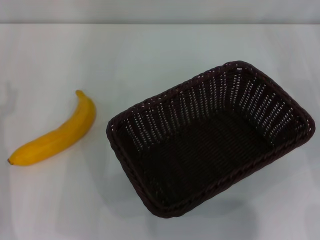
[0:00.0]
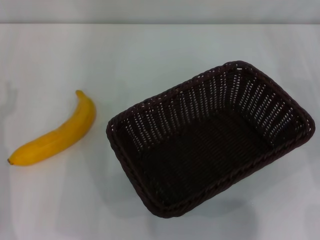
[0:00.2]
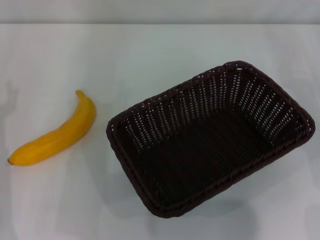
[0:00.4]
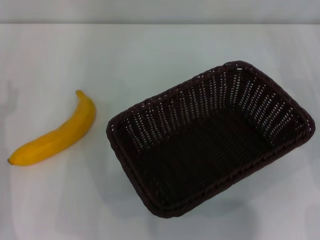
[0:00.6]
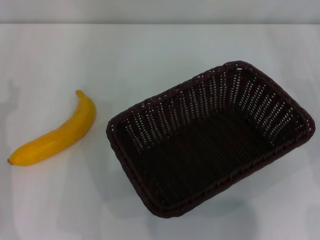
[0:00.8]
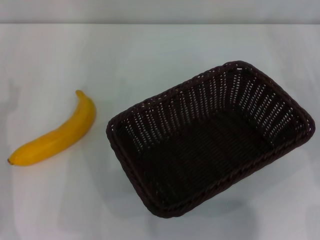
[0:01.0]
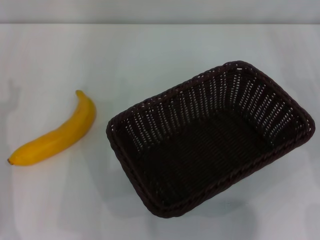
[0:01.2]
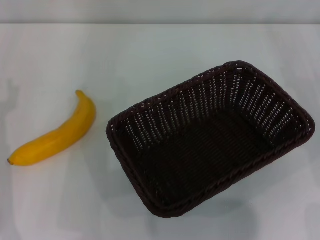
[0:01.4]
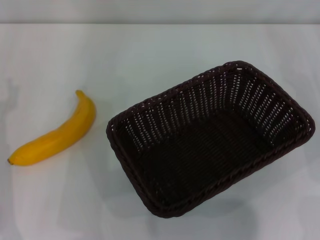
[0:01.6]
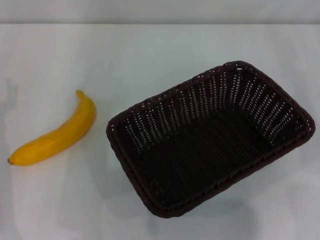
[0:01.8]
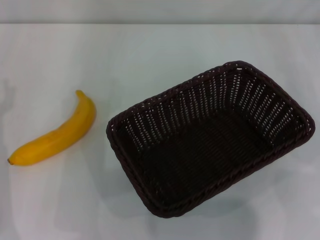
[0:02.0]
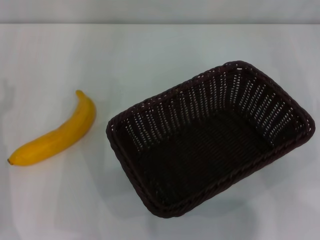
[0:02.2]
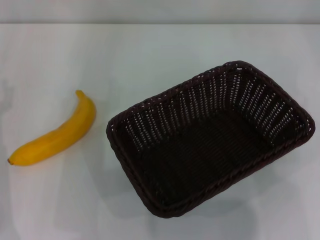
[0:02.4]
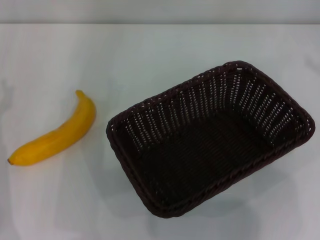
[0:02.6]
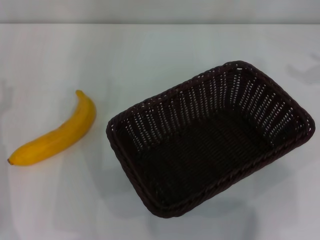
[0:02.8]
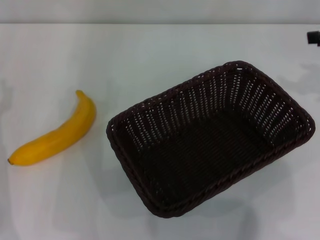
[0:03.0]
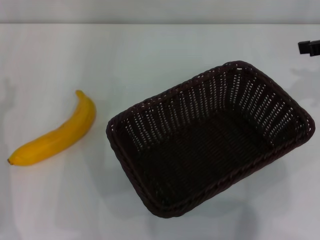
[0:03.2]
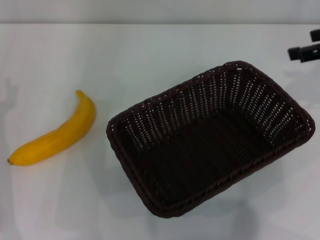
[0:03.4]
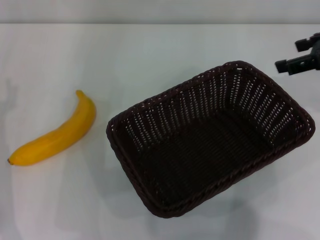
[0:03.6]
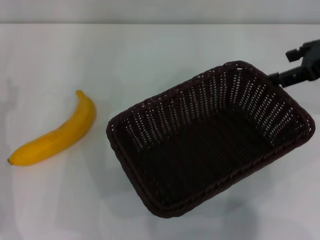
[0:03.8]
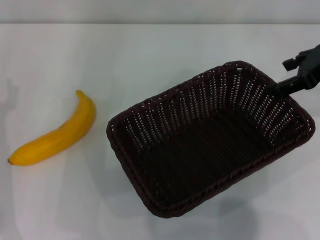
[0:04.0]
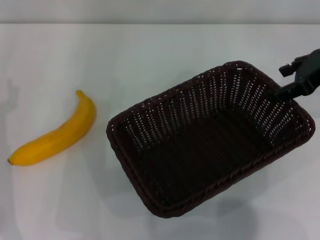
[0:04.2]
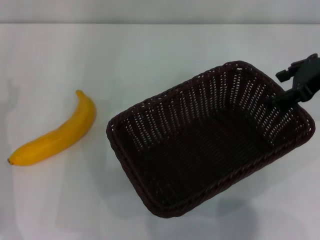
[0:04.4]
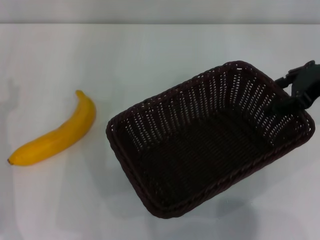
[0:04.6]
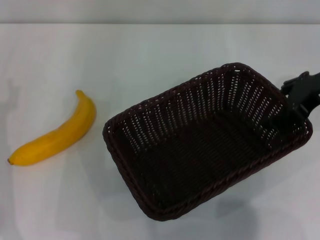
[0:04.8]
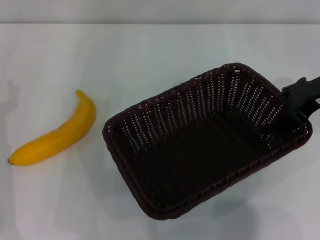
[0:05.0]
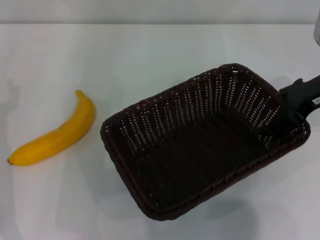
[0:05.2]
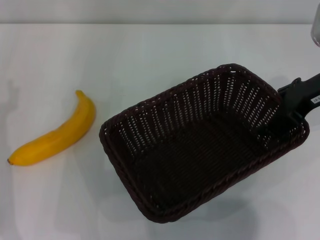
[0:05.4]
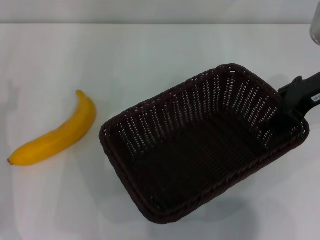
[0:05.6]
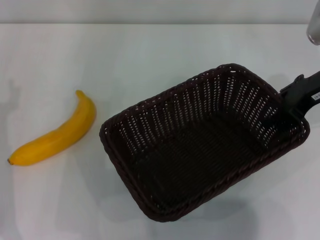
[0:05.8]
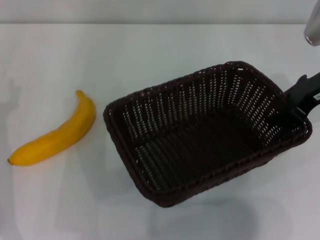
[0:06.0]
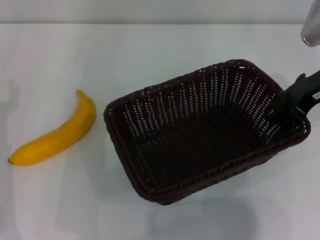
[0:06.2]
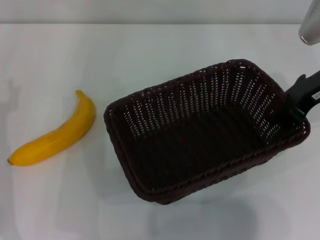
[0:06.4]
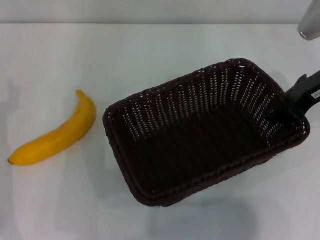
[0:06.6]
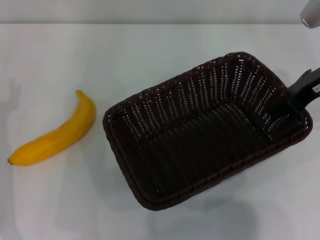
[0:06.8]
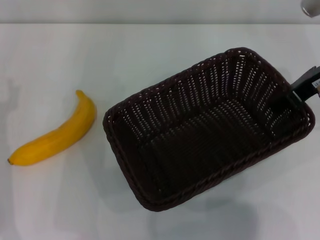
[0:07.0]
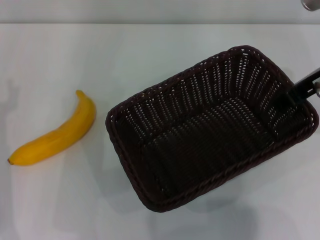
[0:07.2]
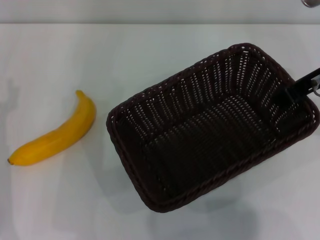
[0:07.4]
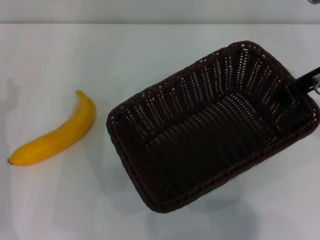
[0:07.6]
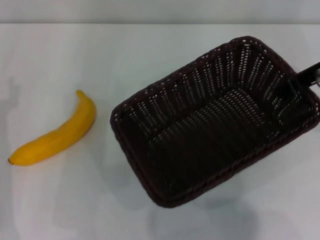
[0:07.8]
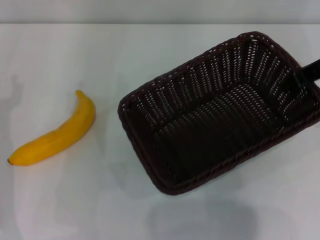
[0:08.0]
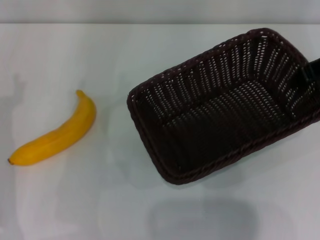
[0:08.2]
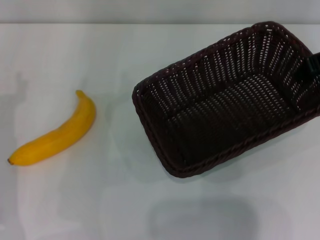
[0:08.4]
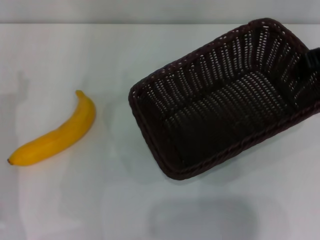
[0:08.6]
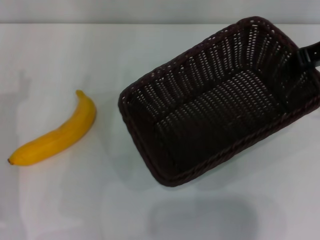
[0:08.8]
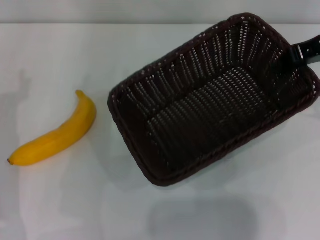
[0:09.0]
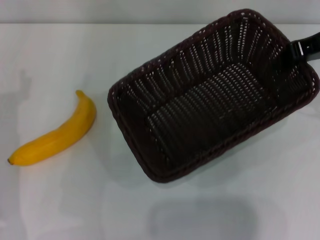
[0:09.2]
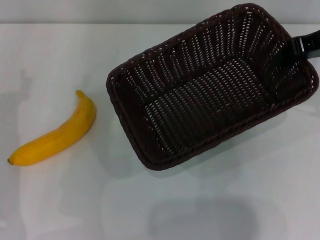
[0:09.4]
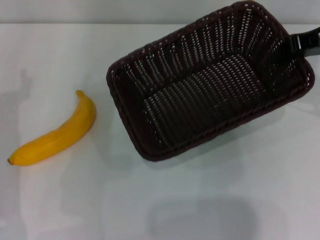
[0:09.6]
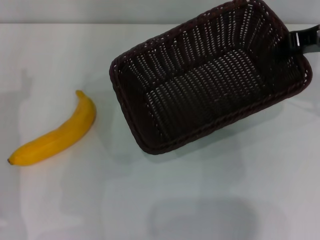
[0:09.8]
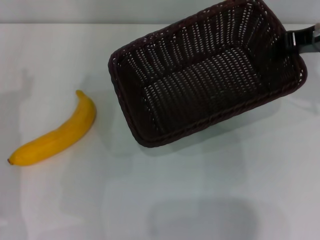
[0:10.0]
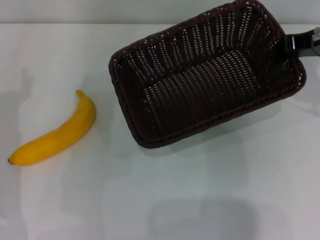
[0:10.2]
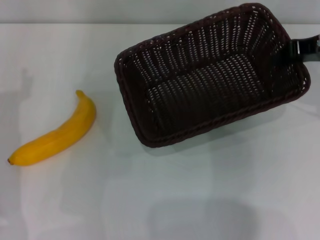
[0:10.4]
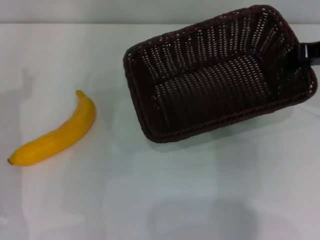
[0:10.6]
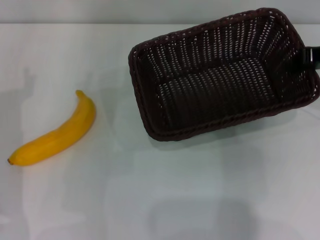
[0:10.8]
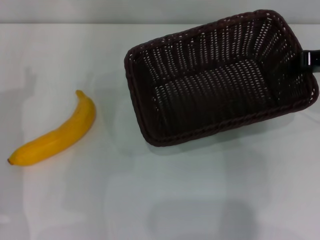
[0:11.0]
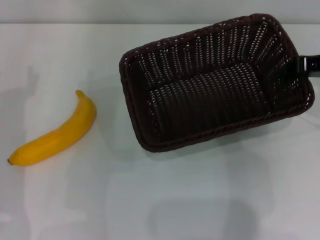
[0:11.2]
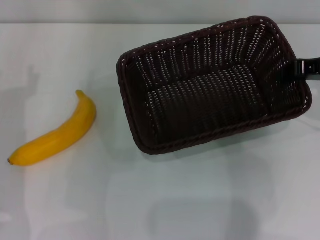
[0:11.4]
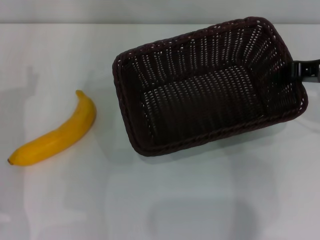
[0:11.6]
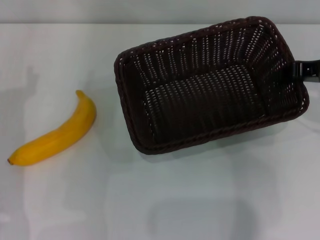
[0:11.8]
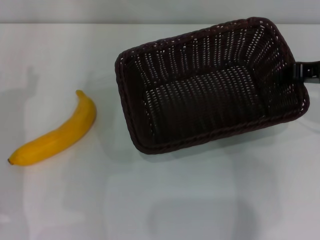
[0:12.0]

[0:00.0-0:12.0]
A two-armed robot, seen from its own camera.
Step, 0:00.0 to 0:07.0: Pick up the dark basket with the right gripper.
0:00.0 to 0:01.6: Both grippers stay about where they are.
0:03.0 to 0:04.4: The right gripper moves to the left, about 5 cm.
0:04.4 to 0:06.0: The right gripper closes.
0:06.0 to 0:07.6: The right gripper changes place by approximately 5 cm, and closes.
0:07.6 to 0:09.0: The grippers move only a little.
0:09.0 to 0:10.4: The grippers make only small movements.
0:10.4 to 0:12.0: The grippers make only small movements.

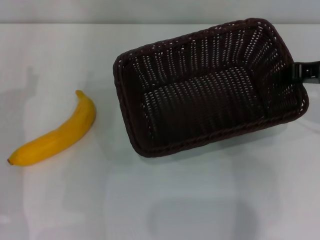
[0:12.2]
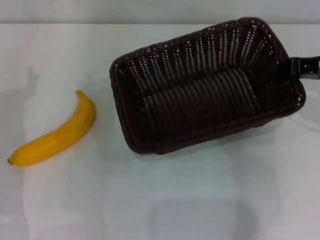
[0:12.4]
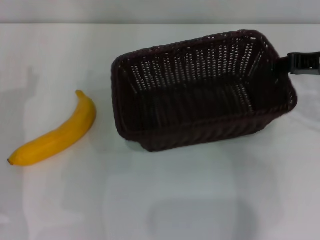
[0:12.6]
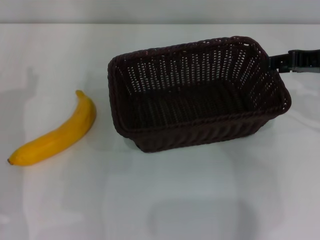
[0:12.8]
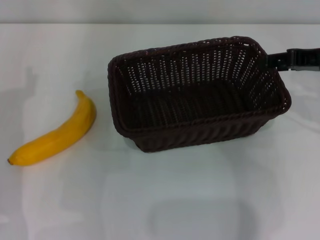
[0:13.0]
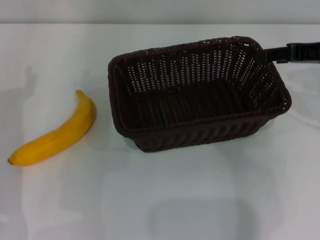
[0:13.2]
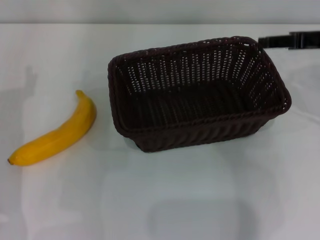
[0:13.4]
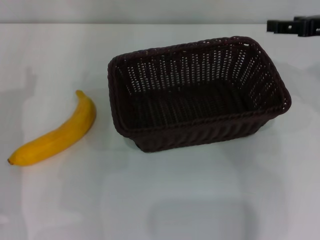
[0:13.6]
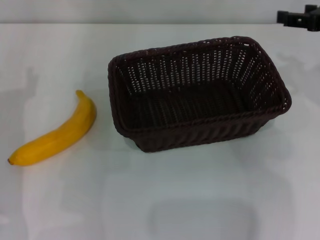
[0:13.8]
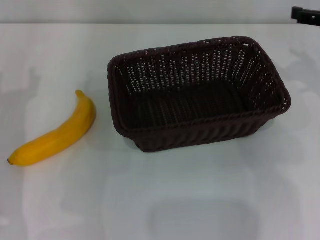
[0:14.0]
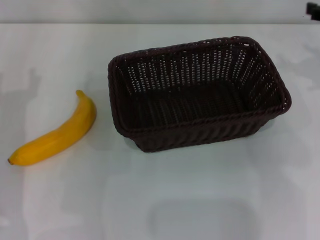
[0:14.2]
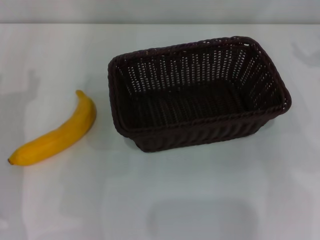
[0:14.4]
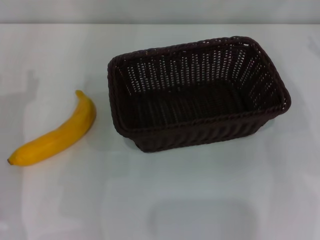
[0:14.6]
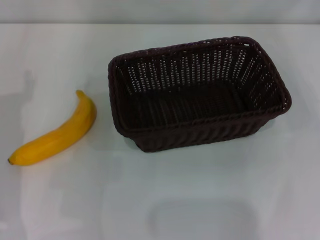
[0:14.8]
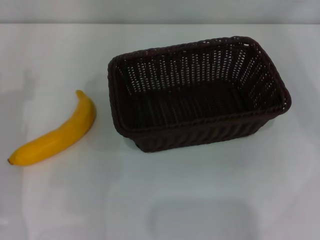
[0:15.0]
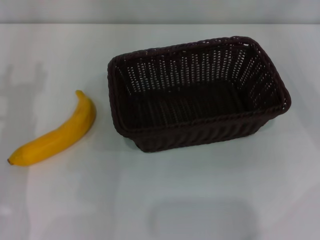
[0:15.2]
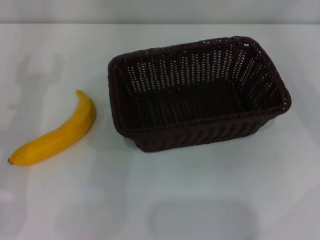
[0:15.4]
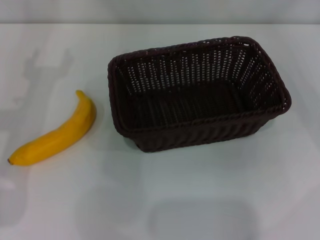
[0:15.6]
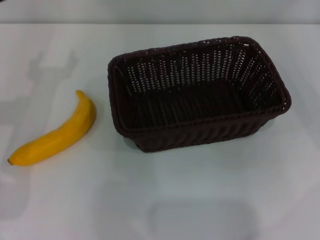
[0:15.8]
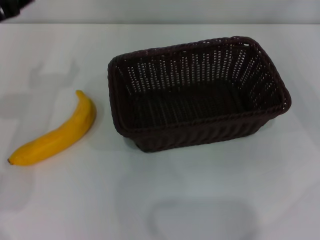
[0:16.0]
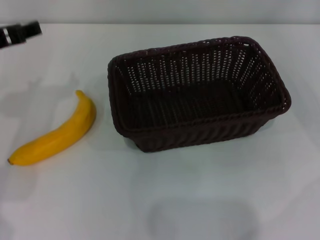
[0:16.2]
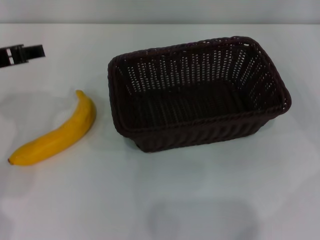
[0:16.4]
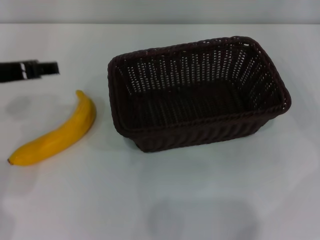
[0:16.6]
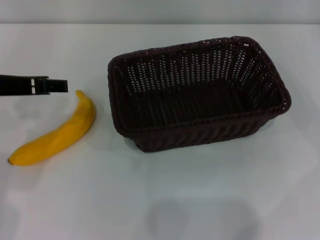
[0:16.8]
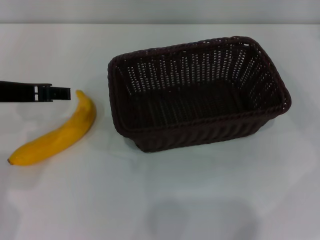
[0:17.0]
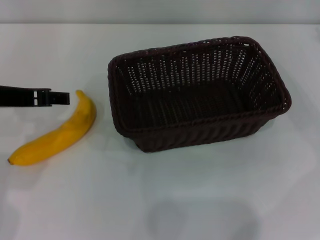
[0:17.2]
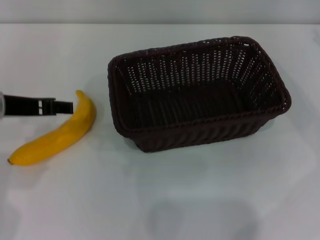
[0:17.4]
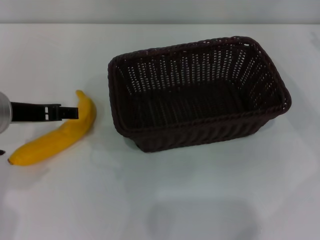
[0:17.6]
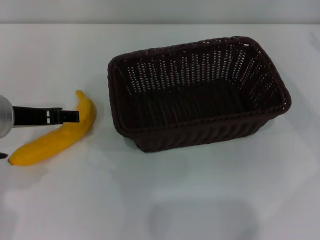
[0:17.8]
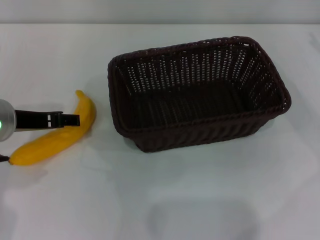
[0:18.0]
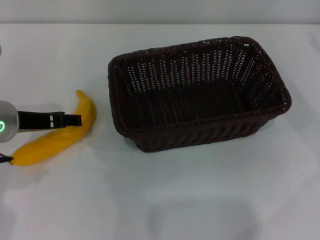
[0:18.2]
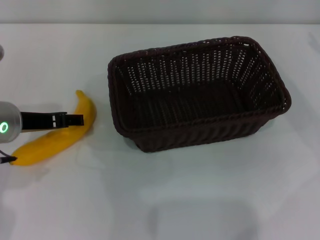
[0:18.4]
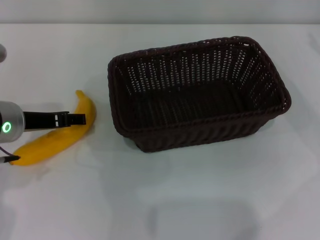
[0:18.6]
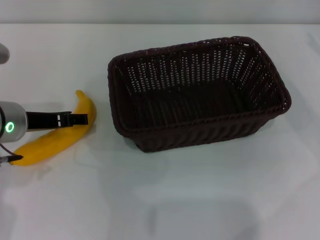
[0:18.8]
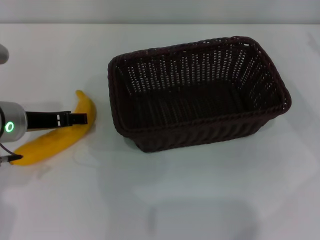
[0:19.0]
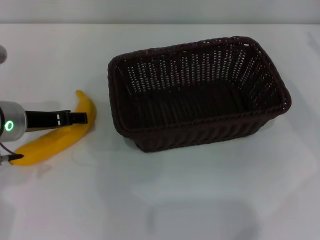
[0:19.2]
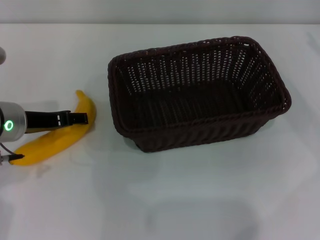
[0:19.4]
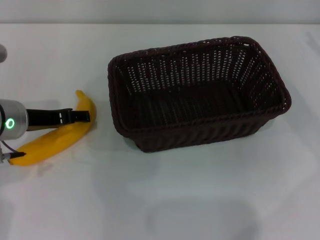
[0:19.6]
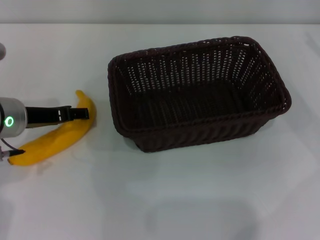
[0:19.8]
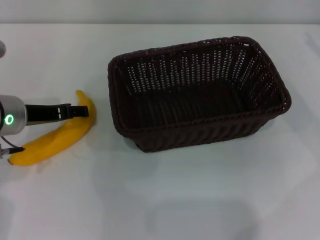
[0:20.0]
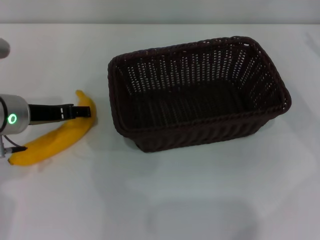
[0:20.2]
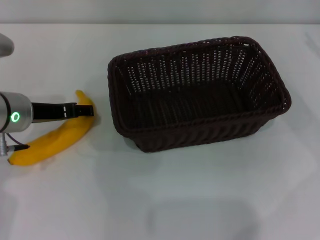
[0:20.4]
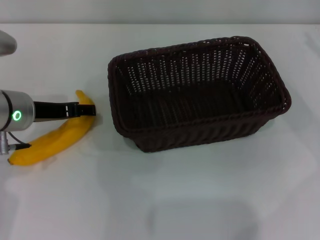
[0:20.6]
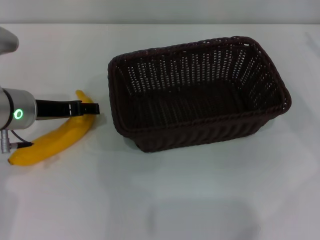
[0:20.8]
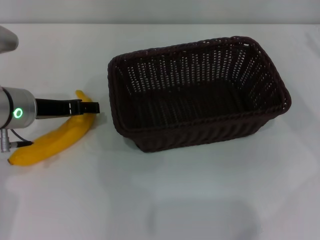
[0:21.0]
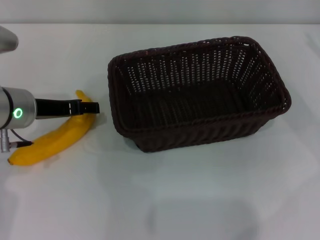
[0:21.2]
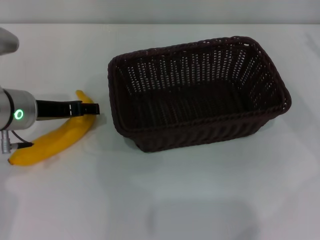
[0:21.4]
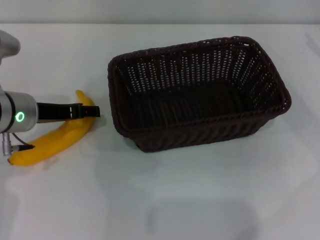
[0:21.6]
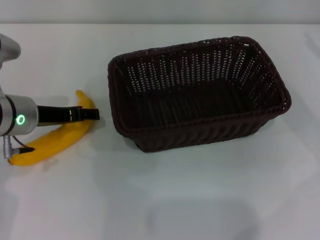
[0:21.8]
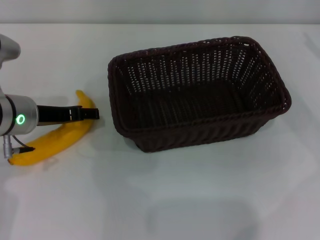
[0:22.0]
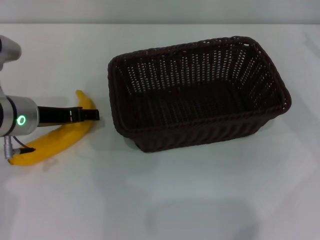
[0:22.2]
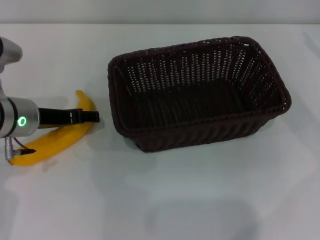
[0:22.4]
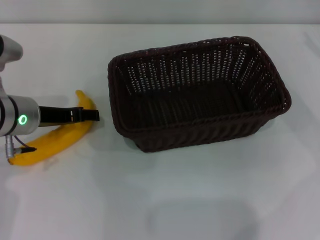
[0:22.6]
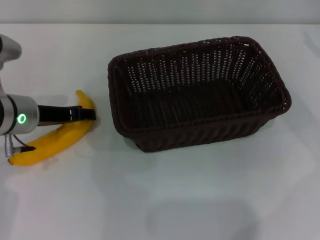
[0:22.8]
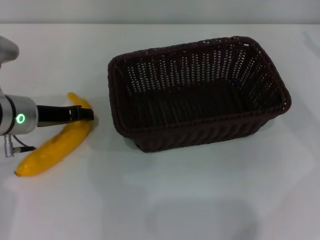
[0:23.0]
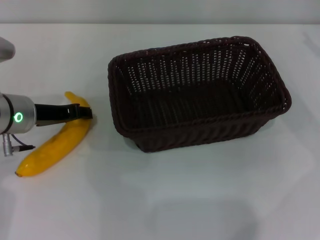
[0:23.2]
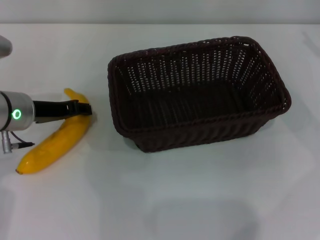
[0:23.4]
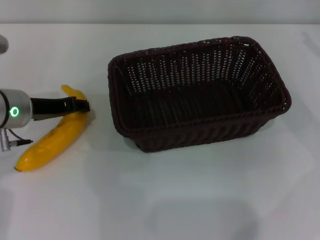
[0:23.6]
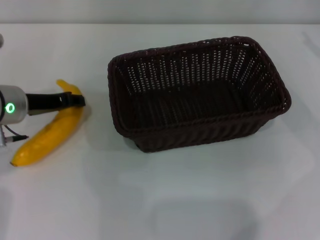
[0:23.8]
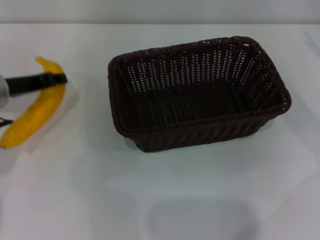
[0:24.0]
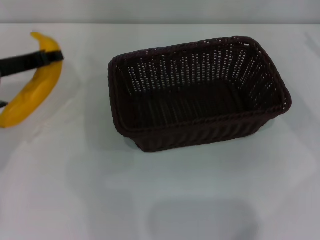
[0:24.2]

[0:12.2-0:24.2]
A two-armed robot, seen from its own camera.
Step, 0:13.2 to 0:23.8: Pick up the banana with the left gripper.
0:12.2 to 0:13.8: The right gripper opens its fingers.
0:13.8 to 0:15.2: The right gripper travels to the right by approximately 10 cm.
0:15.2 to 0:16.6: The left gripper moves upward, roughly 10 cm.
0:16.6 to 0:18.2: The left gripper travels downward by approximately 5 cm.
0:18.2 to 0:22.6: The grippers make only small movements.
0:22.6 to 0:24.2: The left gripper ends up some 5 cm from where it was, and closes its fingers.
